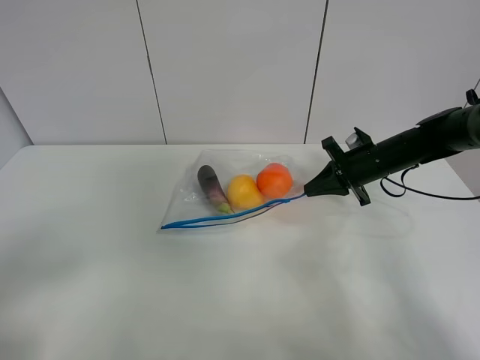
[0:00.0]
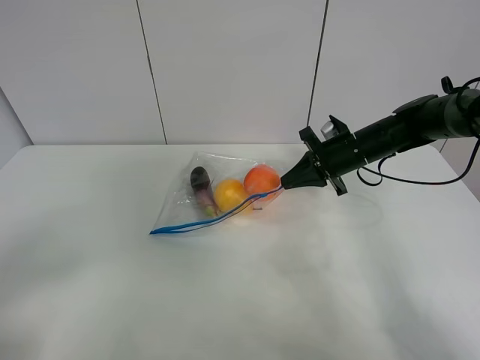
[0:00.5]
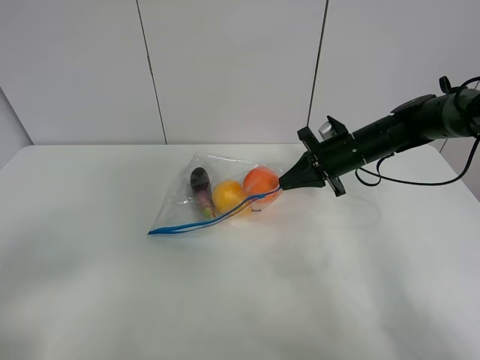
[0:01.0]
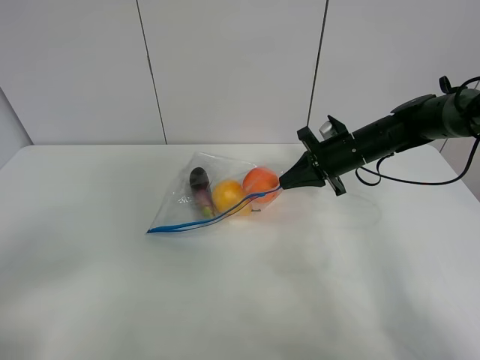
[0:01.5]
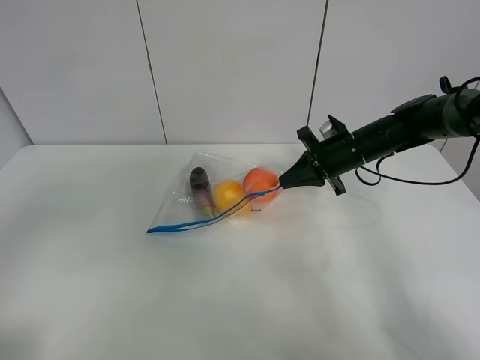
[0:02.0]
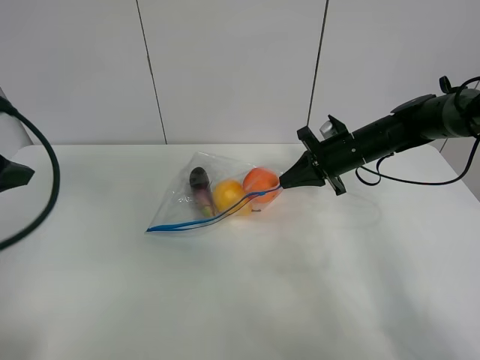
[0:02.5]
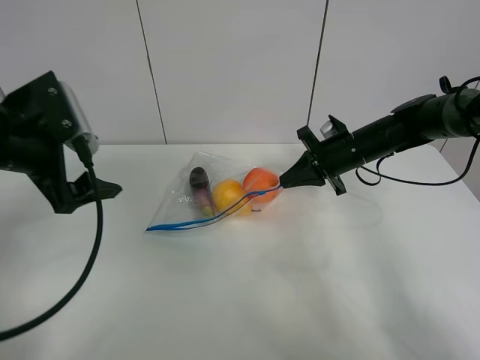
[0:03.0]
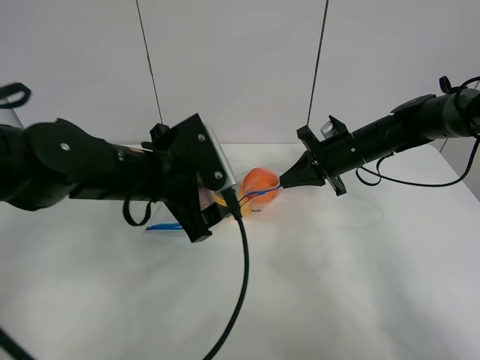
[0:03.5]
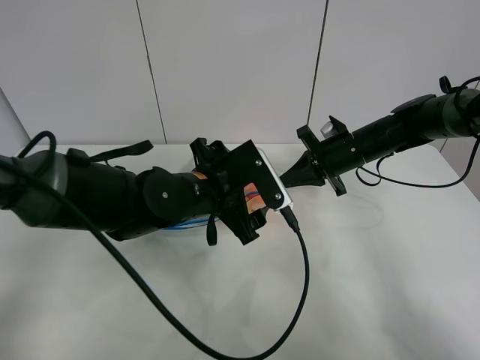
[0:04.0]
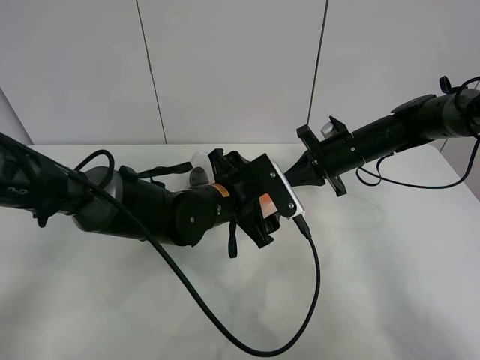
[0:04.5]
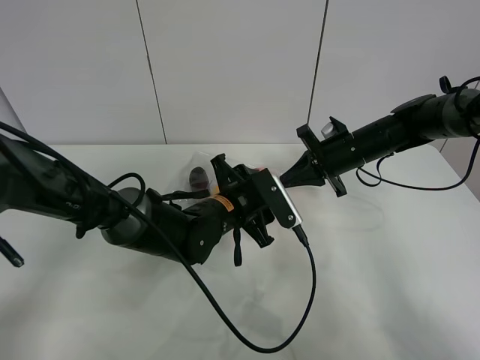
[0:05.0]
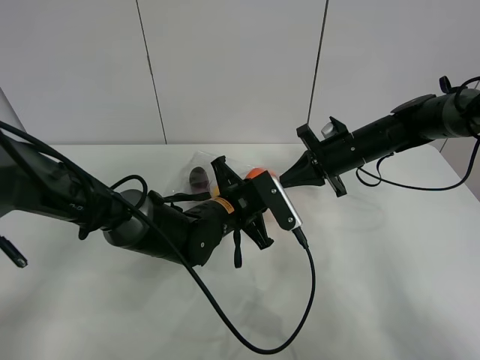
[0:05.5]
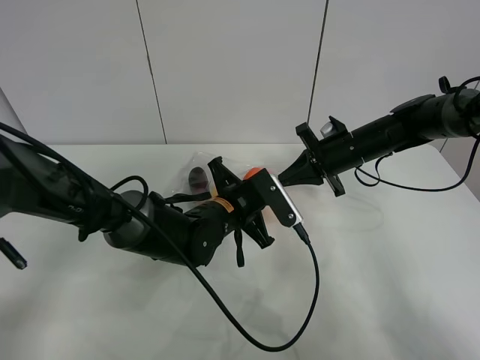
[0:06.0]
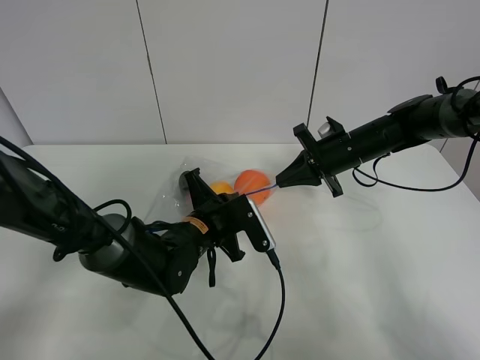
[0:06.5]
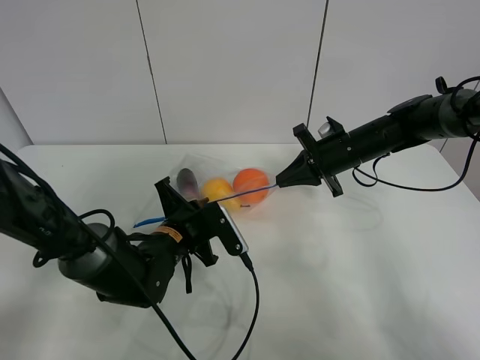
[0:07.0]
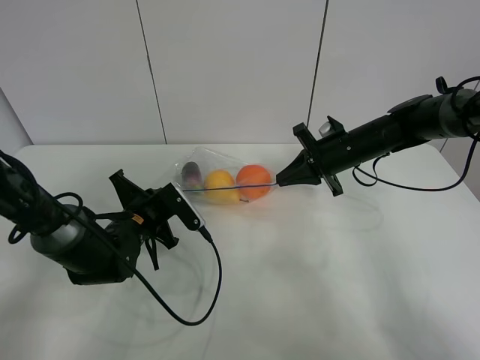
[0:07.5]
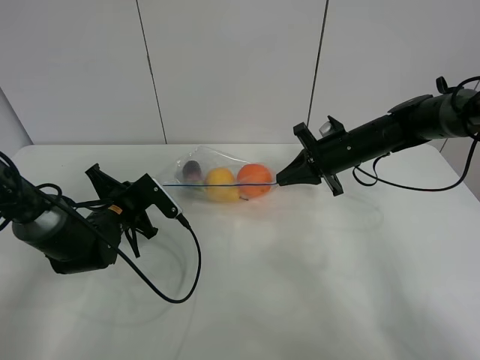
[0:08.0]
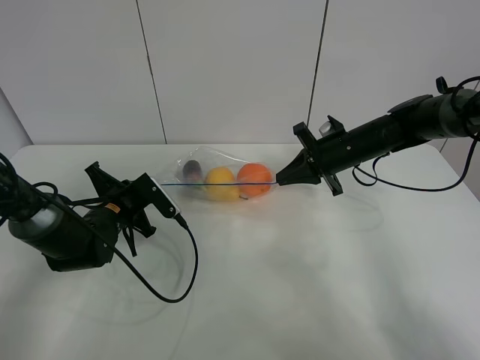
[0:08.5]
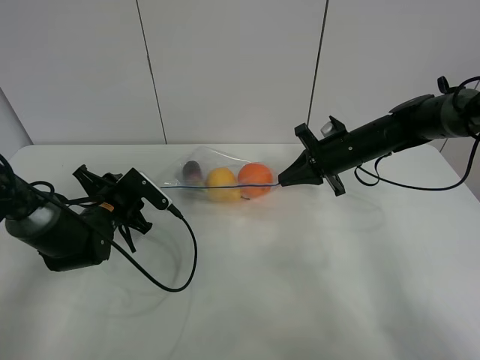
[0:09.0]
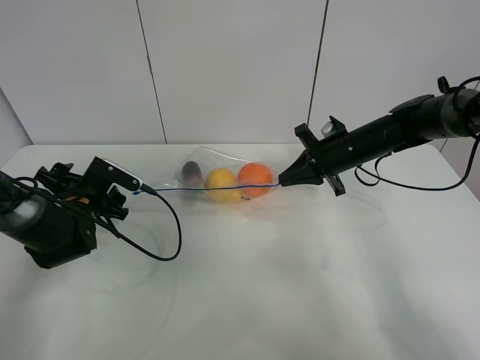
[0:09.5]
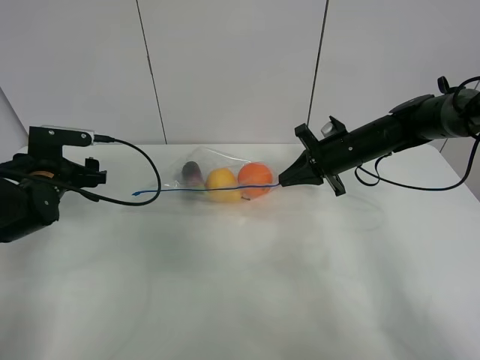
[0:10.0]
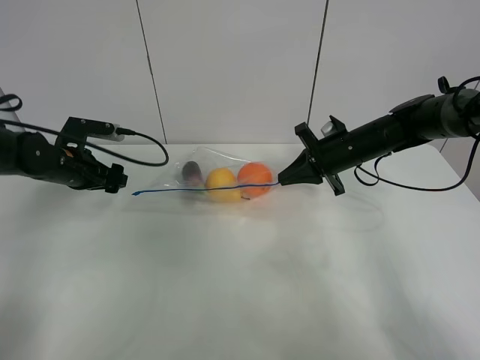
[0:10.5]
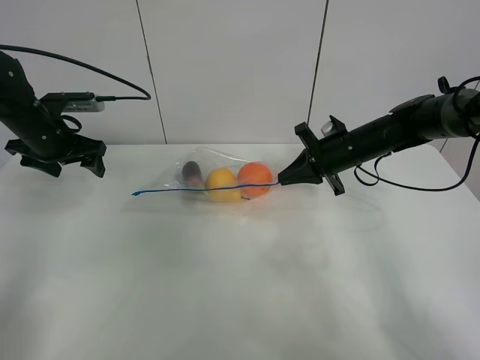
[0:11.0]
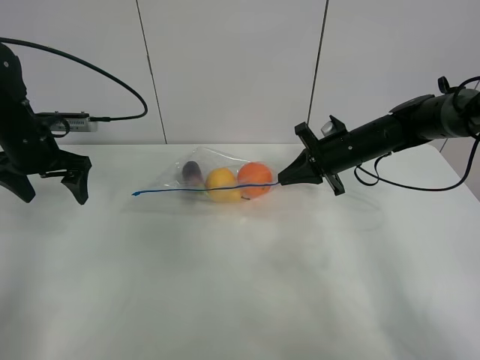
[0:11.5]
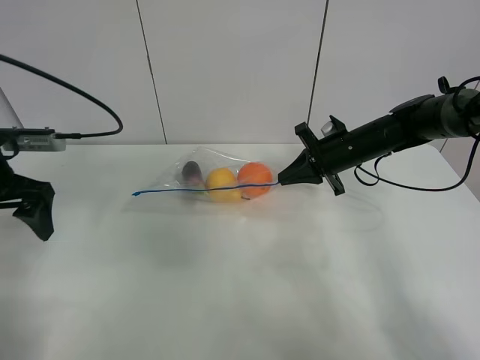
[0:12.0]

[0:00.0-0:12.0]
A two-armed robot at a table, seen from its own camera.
Step, 0:01.0 to 0:09.5: Pull the fruit bag with left gripper.
0:00.0 to 0:02.0: The left gripper goes about 10 cm upward and forward.
0:02.0 to 0:04.0: The left gripper is displaced to the right, forward and downward by approximately 35 cm.
0:04.0 to 0:06.0: The left gripper moves downward, approximately 5 cm, and closes up.
0:06.0 to 0:08.0: The left gripper heads to the left, covering approximately 20 cm.
0:08.0 to 0:10.0: The left gripper shifts approximately 10 cm to the left and upward, and opens.
0:10.0 to 0:12.0: The left gripper shifts about 15 cm upward and backward.

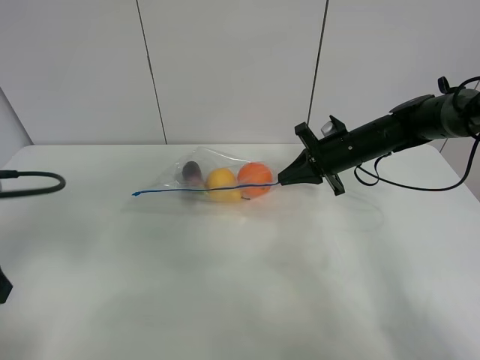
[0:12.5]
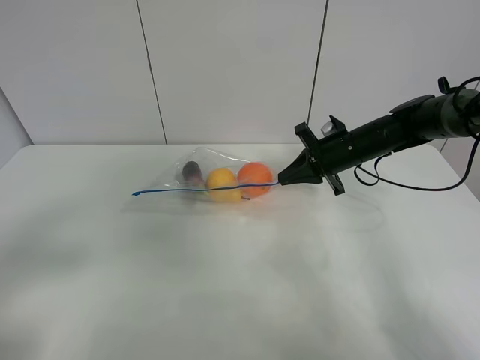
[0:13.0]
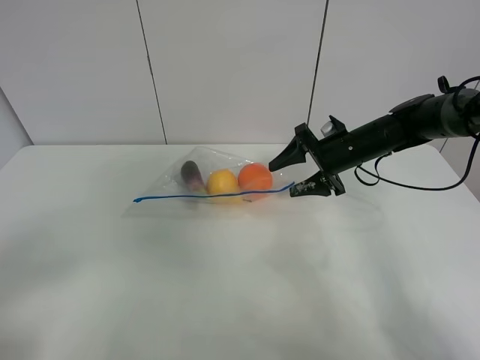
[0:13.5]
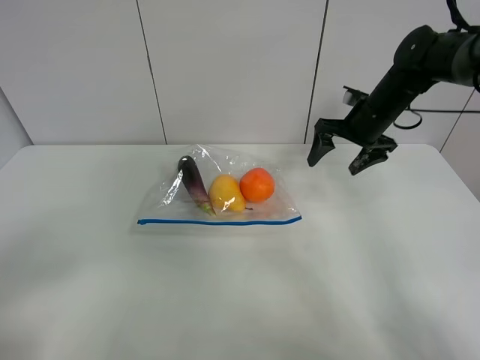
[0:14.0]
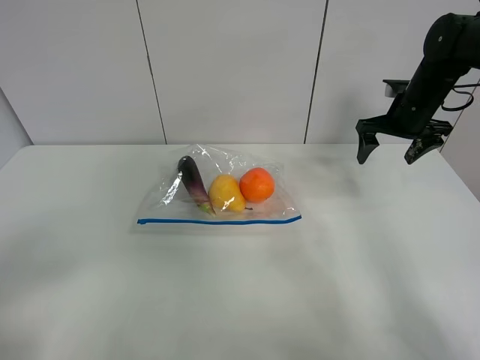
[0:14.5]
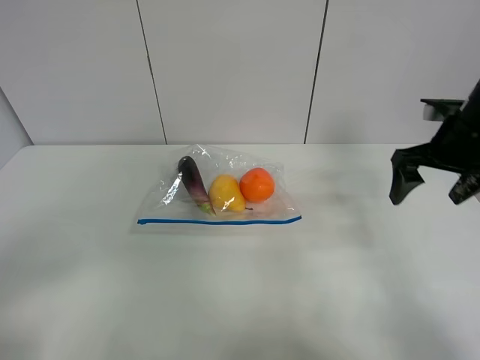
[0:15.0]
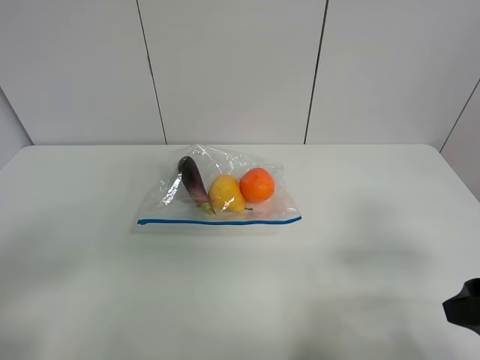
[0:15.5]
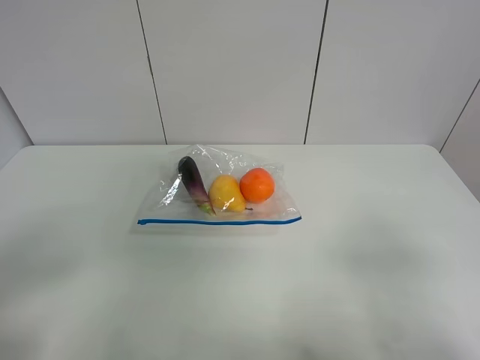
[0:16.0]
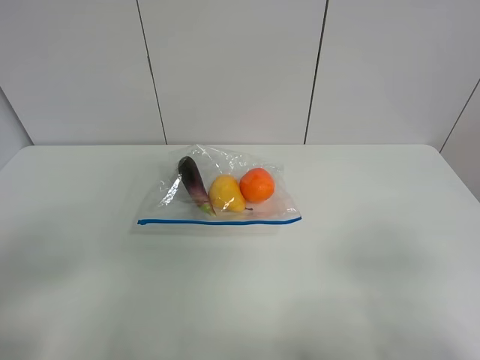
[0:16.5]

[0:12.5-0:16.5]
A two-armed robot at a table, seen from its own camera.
0:12.5 to 0:14.5: The right gripper shifts about 10 cm to the right and upward, and opens up. Meanwhile the left gripper moves backward, approximately 15 cm.
0:14.5 to 0:16.5: The right gripper shifts roughly 40 cm backward.
